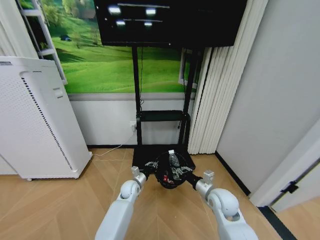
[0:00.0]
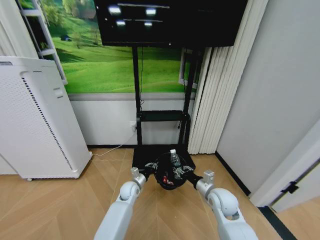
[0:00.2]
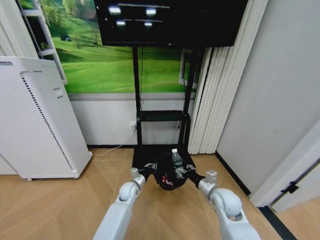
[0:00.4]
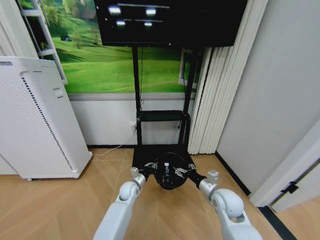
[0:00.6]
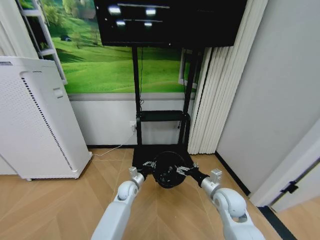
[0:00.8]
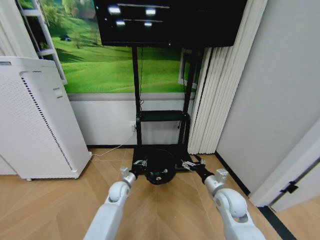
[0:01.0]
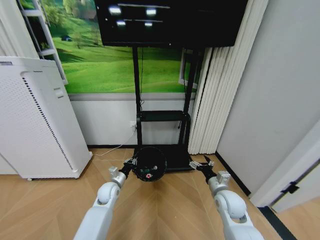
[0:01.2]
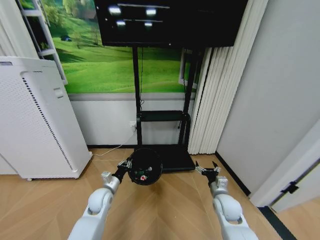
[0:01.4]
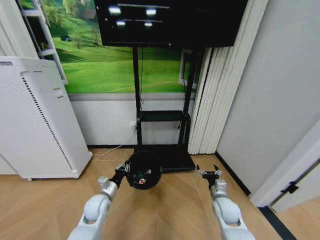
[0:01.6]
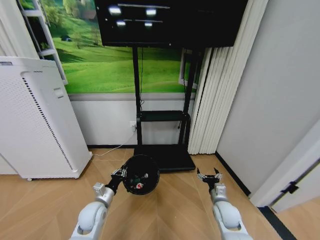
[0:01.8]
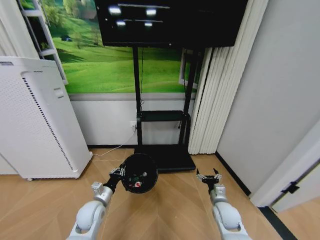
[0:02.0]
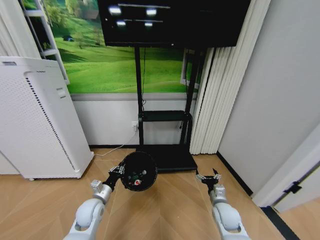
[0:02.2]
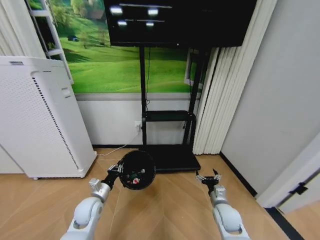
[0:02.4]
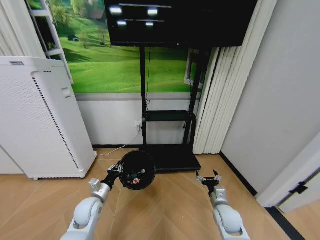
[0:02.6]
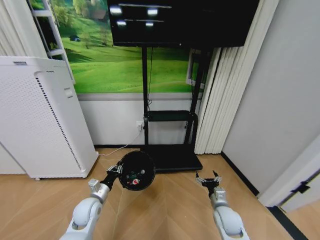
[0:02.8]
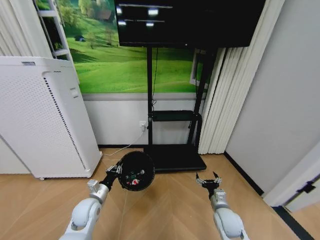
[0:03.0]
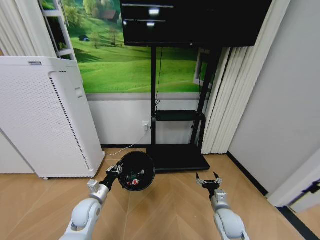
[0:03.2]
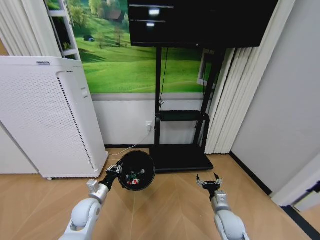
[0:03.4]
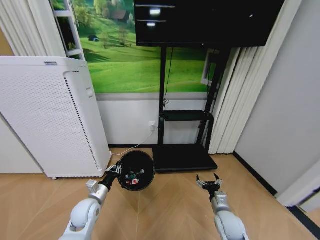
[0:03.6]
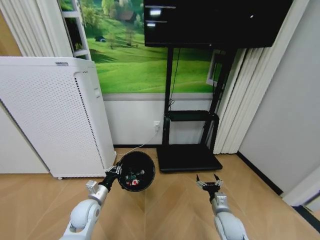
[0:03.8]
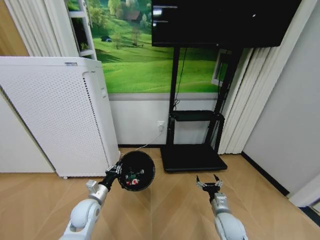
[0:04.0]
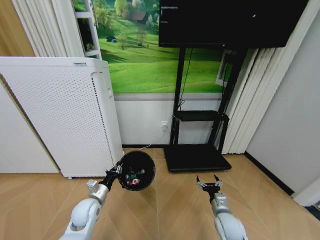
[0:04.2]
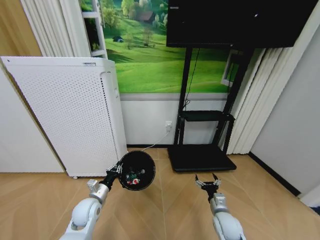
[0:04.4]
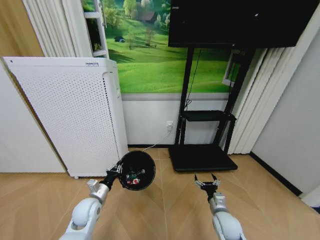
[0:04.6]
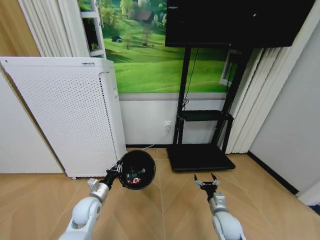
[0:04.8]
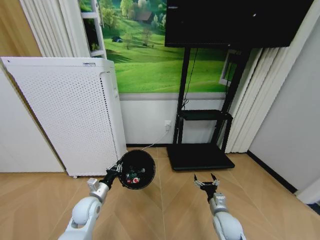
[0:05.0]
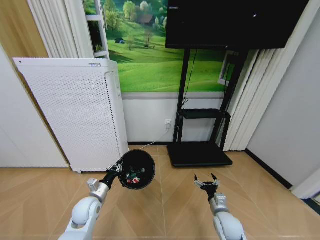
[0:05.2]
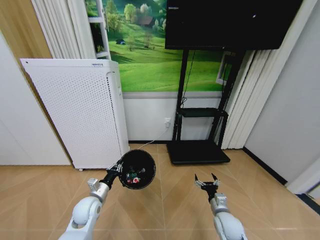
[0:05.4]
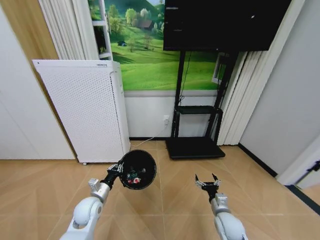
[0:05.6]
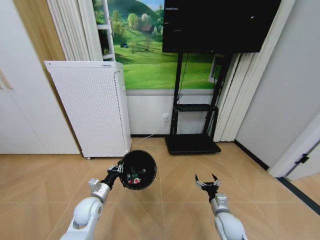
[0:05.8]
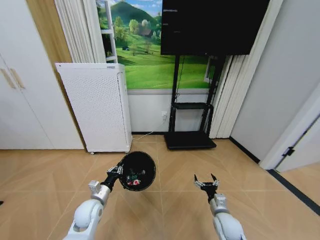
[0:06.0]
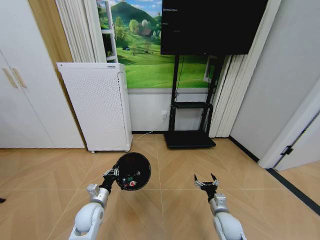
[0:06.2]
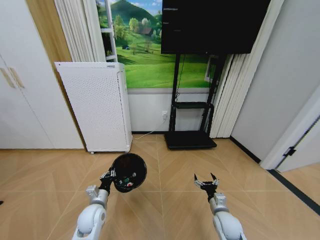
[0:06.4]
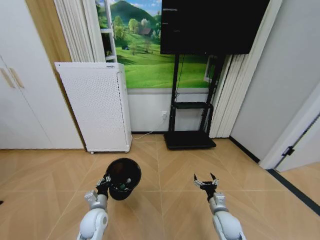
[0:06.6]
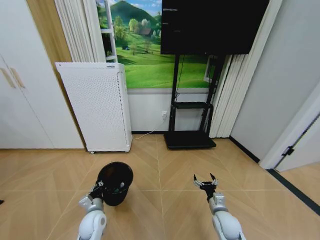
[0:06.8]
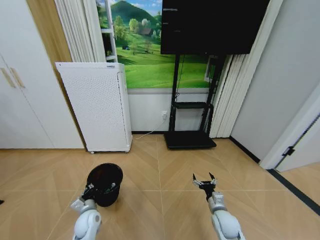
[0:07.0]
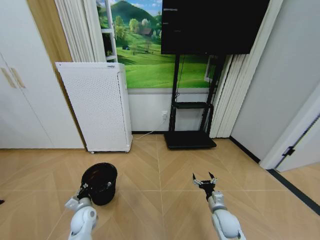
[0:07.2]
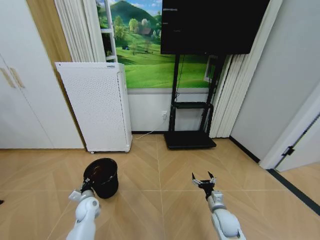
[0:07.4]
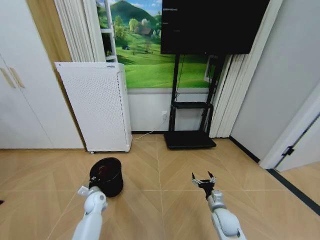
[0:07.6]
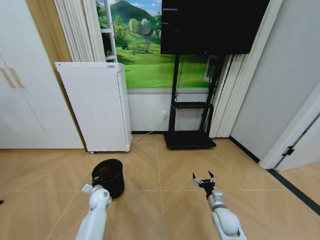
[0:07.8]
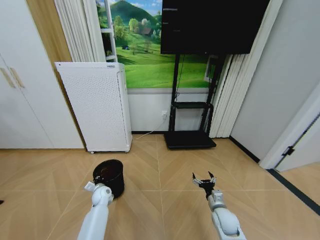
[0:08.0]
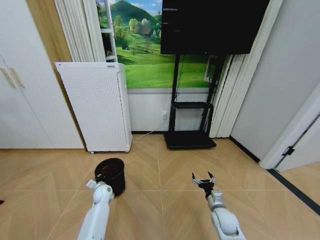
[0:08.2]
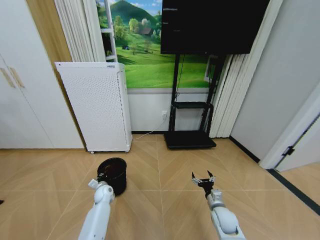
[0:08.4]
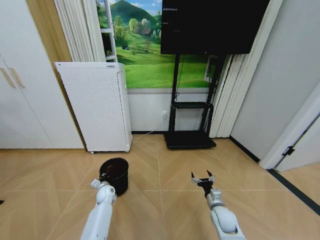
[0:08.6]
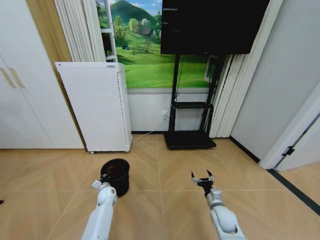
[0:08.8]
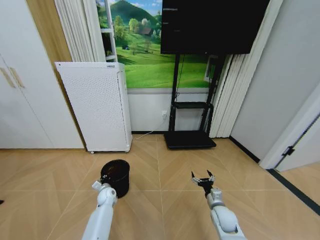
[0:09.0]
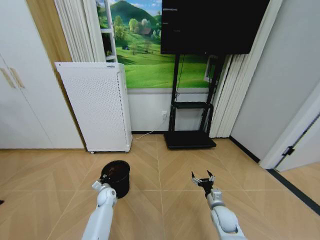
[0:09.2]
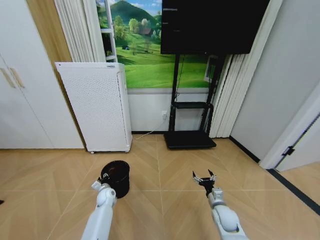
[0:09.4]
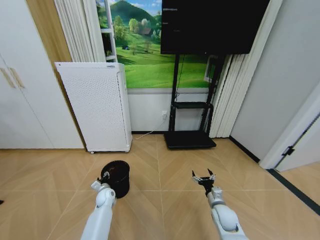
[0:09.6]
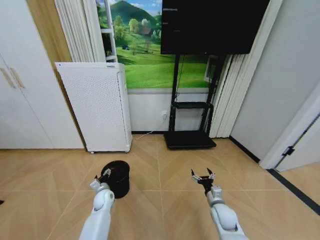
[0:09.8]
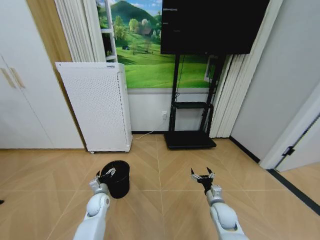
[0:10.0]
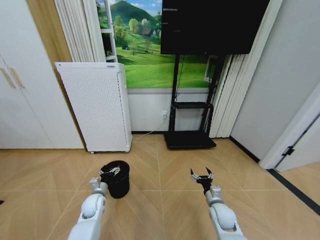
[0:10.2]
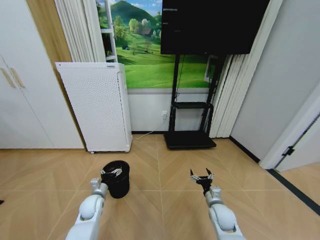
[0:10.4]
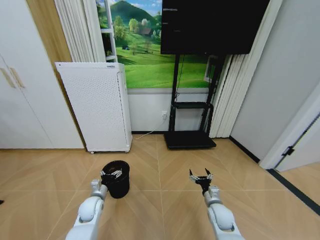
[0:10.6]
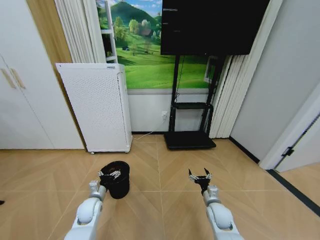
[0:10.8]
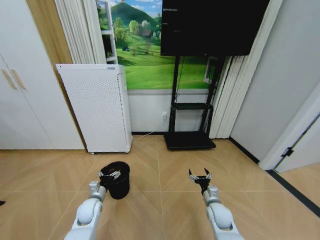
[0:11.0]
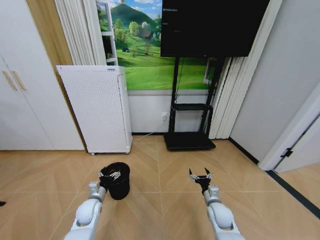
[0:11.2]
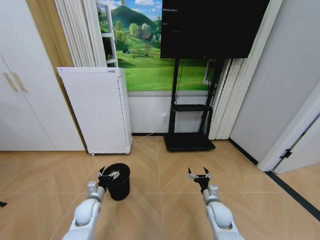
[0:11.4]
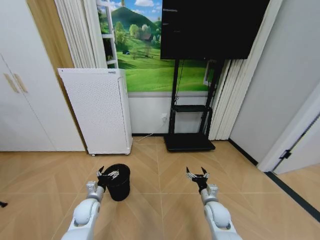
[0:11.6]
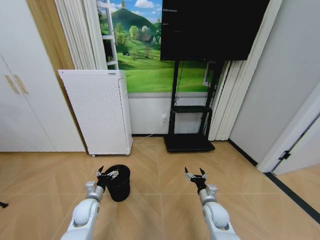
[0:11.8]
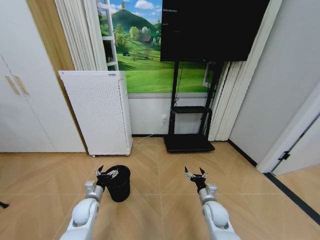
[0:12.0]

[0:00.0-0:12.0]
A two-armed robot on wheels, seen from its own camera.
Task of the whole recording: Pick up the trash bin and place the garbage on the floor into it.
0:00.0 to 0:01.6: The right gripper moves downward, some 10 cm, and opens its fingers. The left gripper goes roughly 15 cm to the left, backward and upward.
0:06.0 to 0:07.6: The left gripper heads downward and forward, covering roughly 10 cm.
0:07.6 to 0:09.0: The left gripper is displaced forward by about 5 cm.
0:09.0 to 0:10.4: The left gripper goes some 10 cm backward and upward, and opens its fingers.
0:10.4 to 0:12.0: The grippers move only a little.

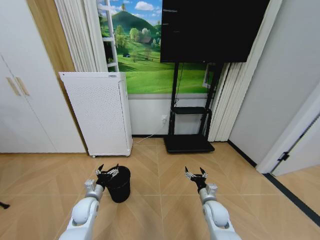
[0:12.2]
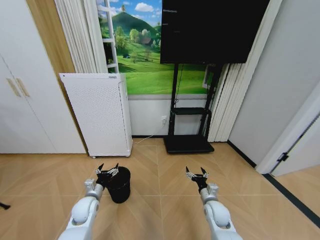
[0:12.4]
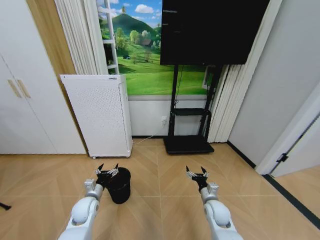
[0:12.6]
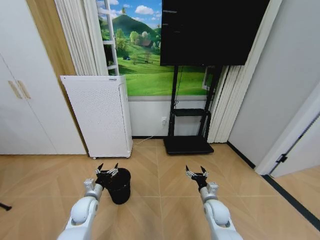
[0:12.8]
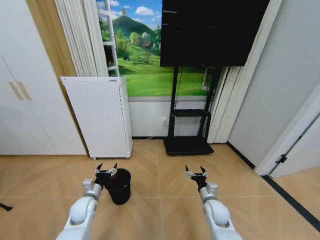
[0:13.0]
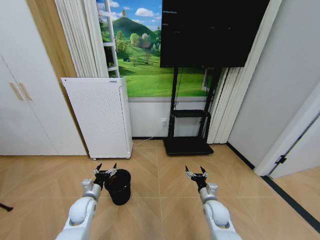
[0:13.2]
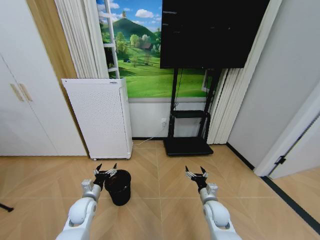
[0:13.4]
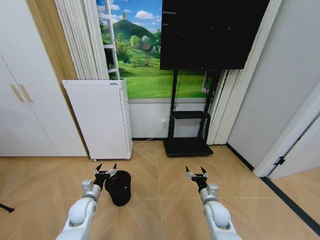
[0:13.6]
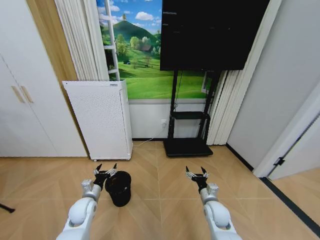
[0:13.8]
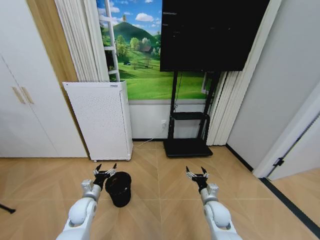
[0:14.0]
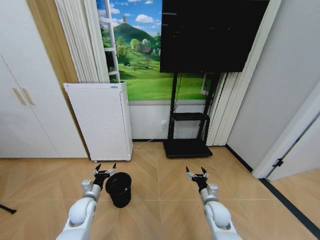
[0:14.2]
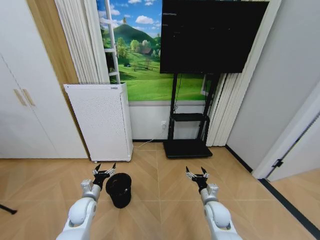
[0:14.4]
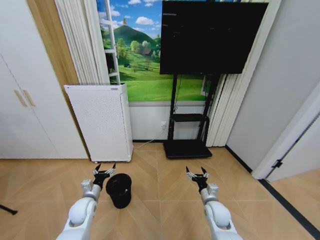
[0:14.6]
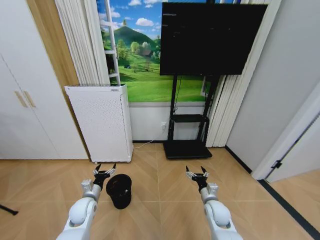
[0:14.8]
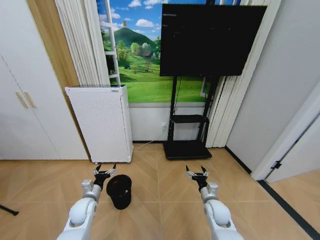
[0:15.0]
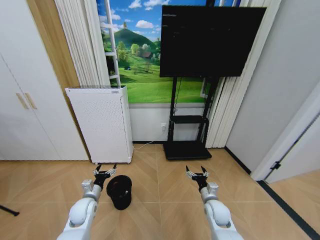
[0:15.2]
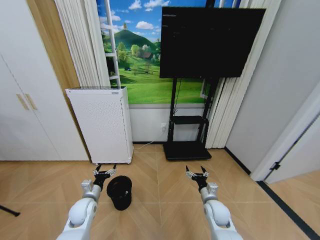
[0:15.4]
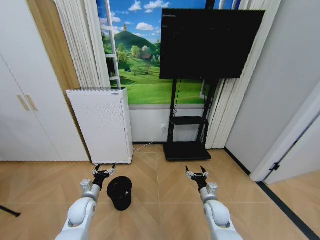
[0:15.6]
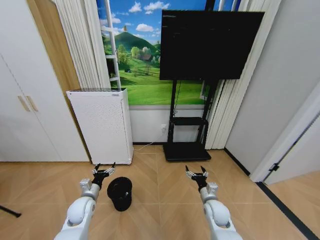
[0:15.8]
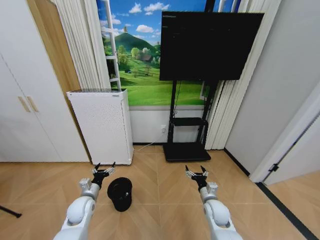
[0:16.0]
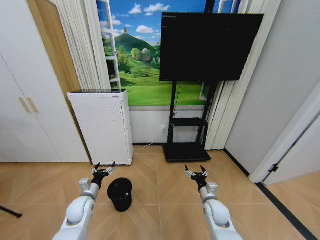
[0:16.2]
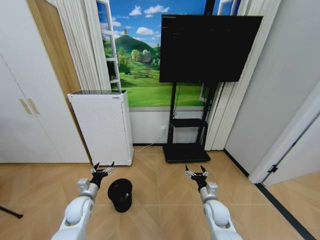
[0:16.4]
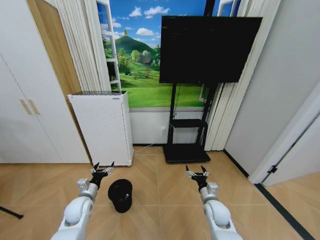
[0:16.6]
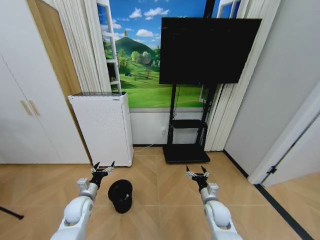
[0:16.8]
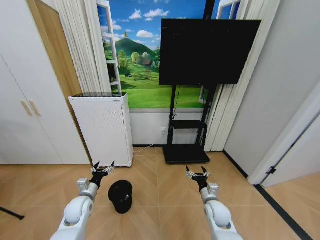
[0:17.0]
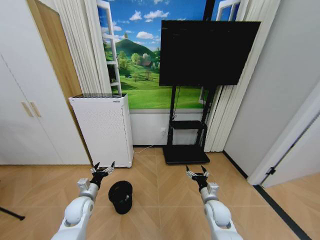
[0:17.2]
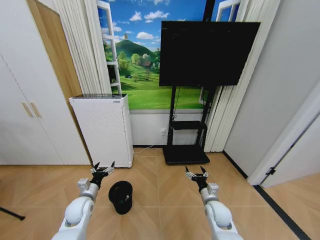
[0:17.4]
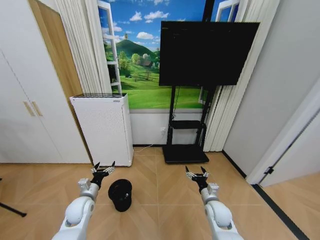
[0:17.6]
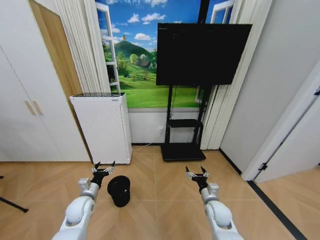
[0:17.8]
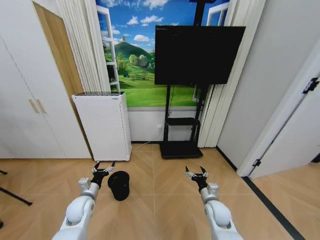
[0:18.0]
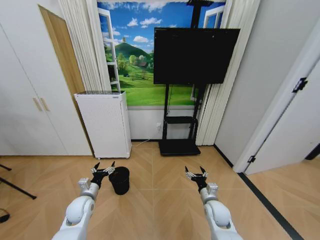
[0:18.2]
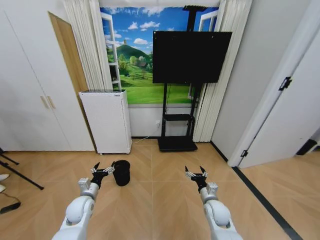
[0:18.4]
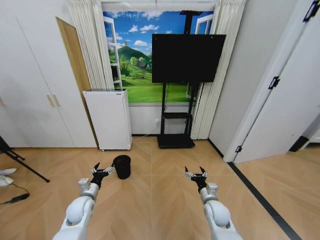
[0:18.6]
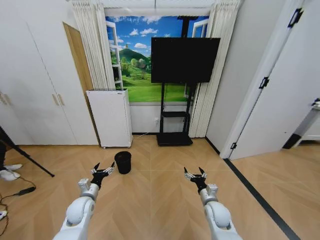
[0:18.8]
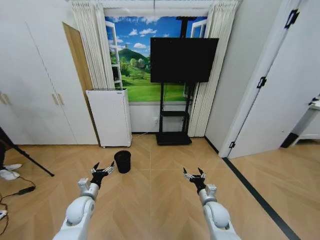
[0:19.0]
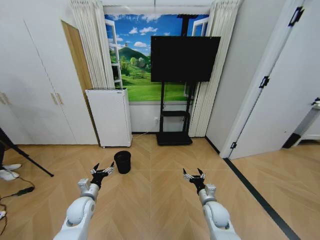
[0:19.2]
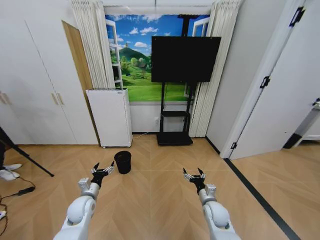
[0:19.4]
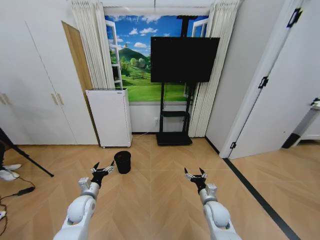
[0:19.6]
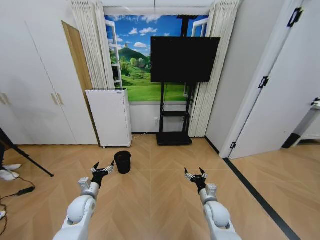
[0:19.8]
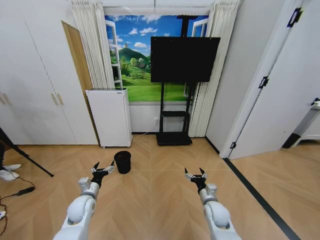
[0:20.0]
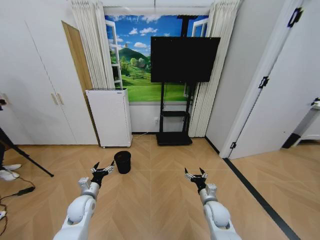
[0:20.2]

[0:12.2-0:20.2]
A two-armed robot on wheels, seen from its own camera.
Task of the whole recording: Pick up the trash bin and place the garbage on the floor into it.
0:12.2 to 0:15.4: The two grippers keep their place.
0:15.4 to 0:17.0: The grippers move only a little.
0:18.6 to 0:20.2: Both grippers stay about where they are.

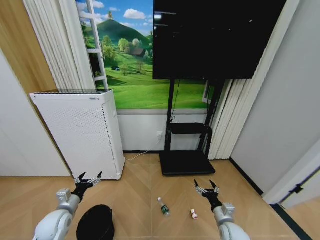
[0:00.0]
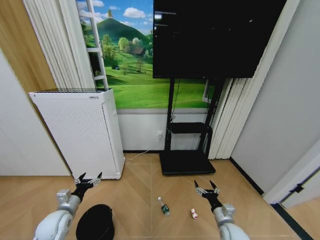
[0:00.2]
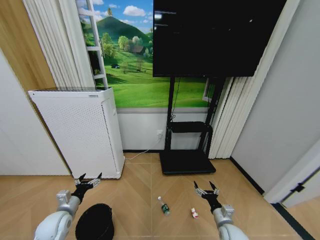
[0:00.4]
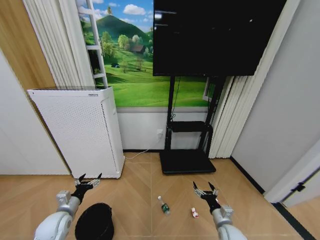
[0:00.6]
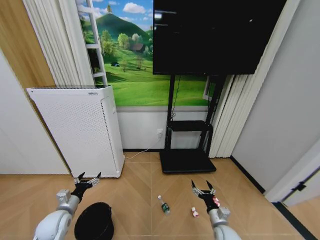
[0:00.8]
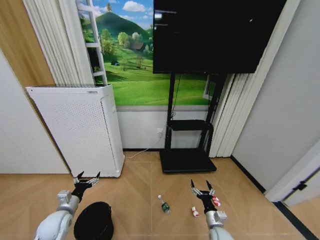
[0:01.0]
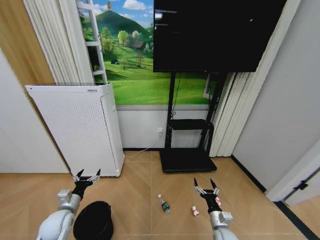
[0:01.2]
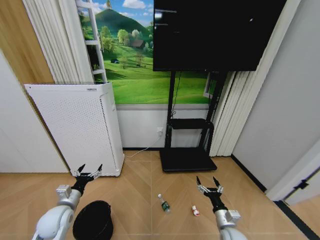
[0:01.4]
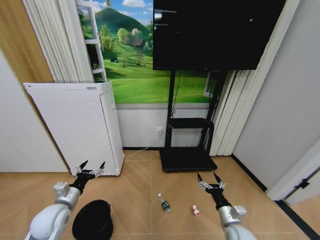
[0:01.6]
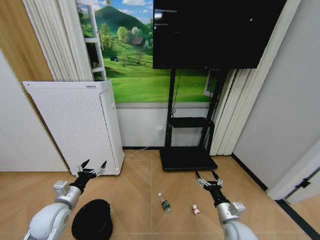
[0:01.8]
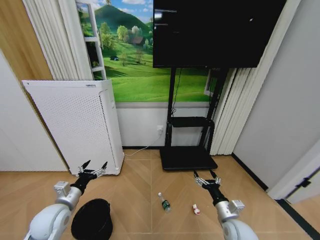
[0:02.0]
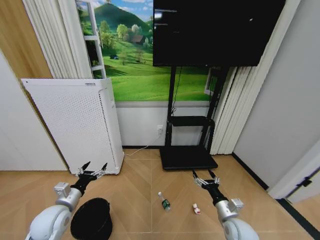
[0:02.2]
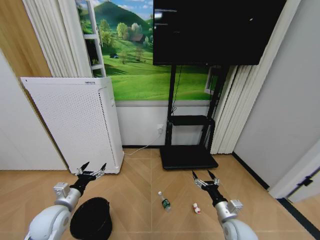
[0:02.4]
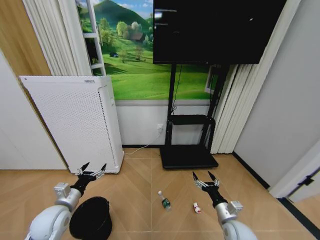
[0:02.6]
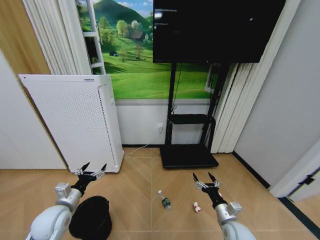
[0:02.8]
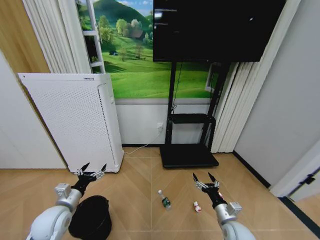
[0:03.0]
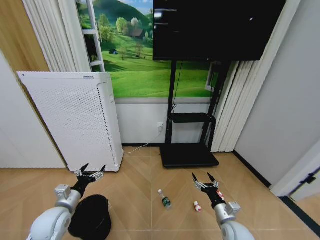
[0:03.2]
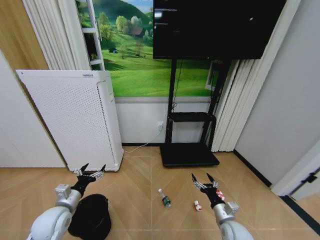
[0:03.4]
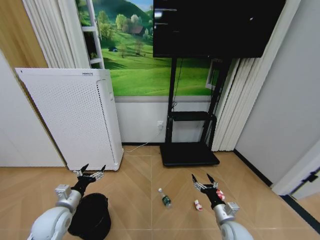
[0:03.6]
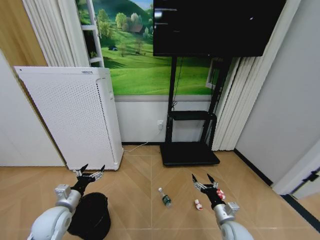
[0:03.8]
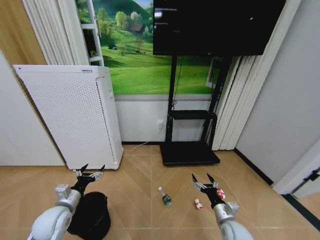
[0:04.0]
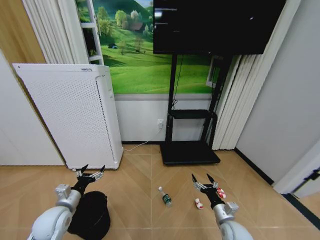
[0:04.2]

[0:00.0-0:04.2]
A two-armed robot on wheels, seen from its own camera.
Task of the whole recording: Pick up the trash bin and place the garbage on the floor into it.
0:02.8 to 0:04.2: There are only small adjustments of the grippers.
